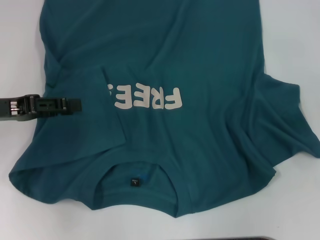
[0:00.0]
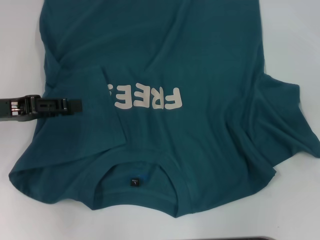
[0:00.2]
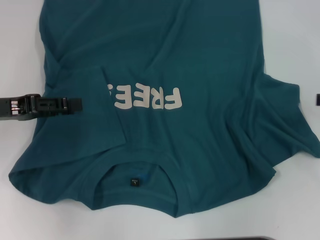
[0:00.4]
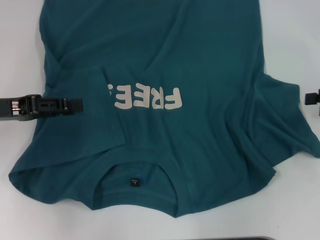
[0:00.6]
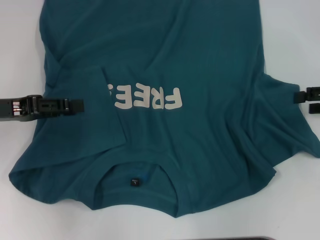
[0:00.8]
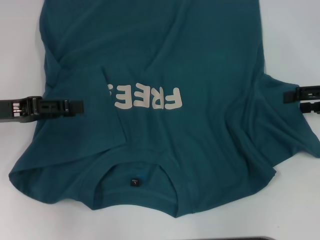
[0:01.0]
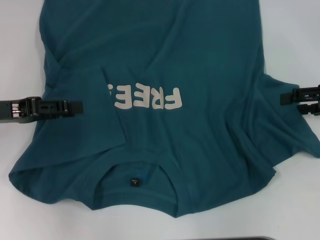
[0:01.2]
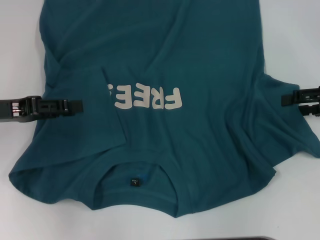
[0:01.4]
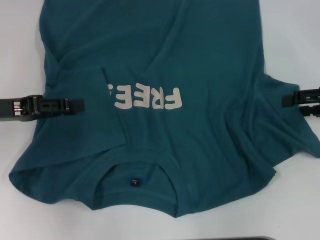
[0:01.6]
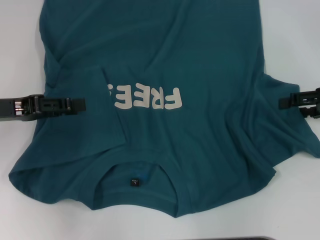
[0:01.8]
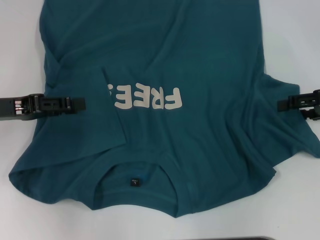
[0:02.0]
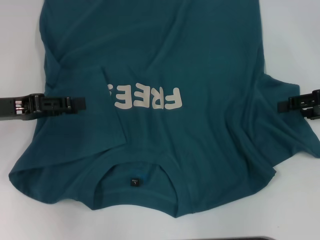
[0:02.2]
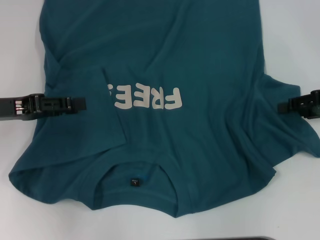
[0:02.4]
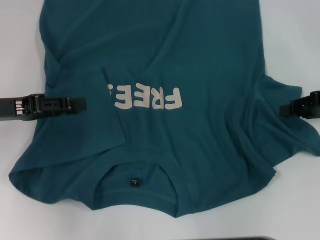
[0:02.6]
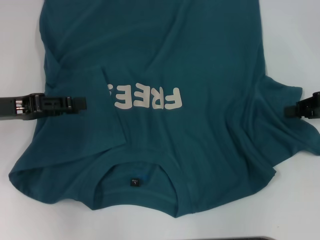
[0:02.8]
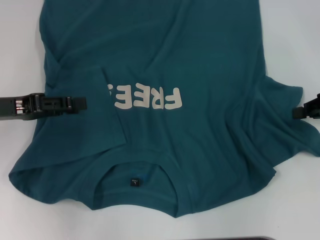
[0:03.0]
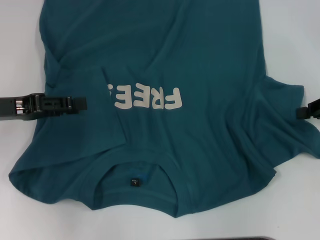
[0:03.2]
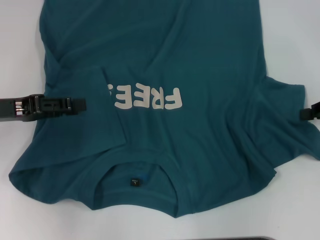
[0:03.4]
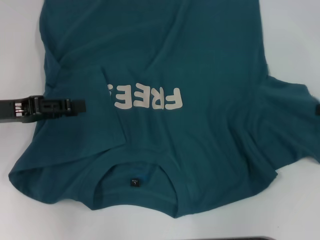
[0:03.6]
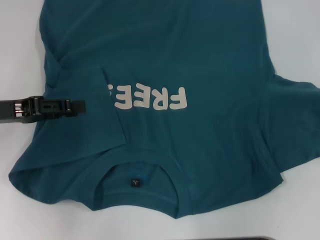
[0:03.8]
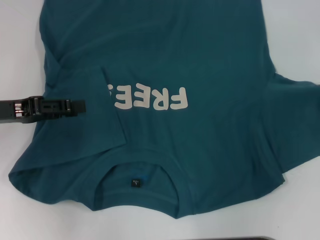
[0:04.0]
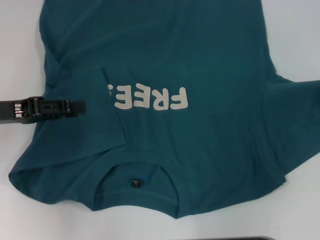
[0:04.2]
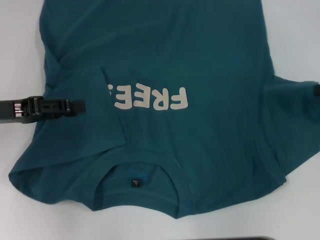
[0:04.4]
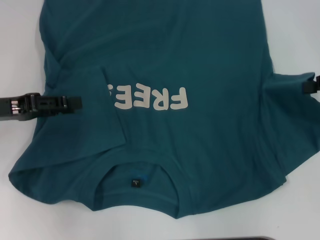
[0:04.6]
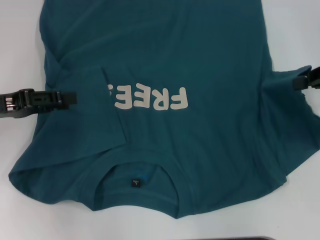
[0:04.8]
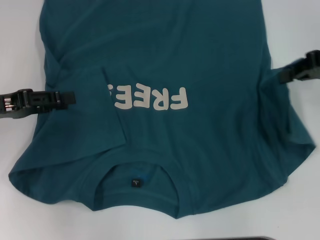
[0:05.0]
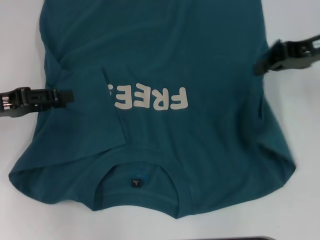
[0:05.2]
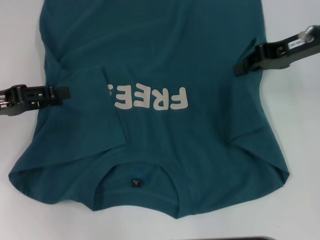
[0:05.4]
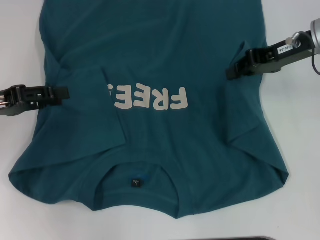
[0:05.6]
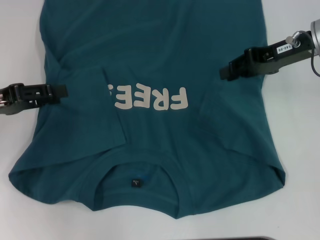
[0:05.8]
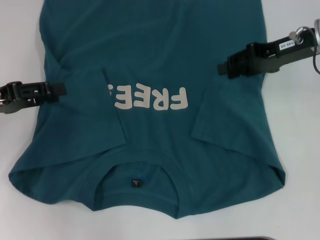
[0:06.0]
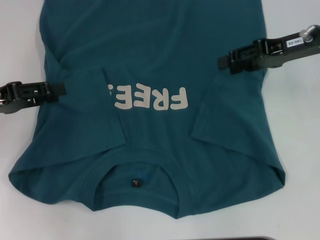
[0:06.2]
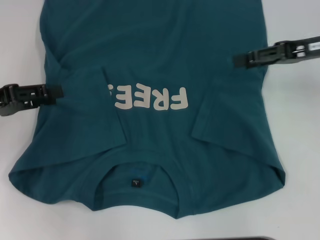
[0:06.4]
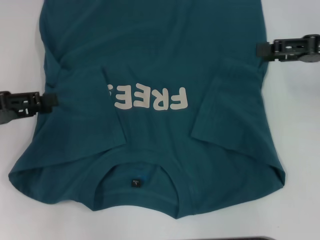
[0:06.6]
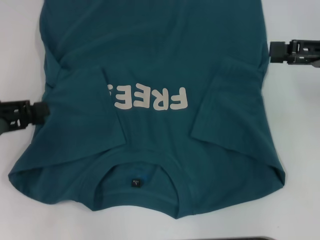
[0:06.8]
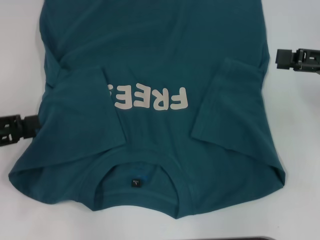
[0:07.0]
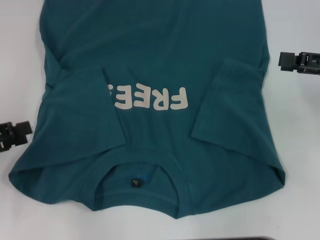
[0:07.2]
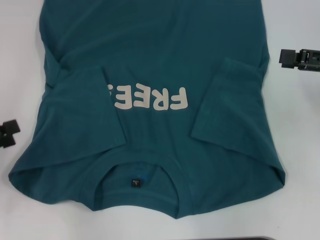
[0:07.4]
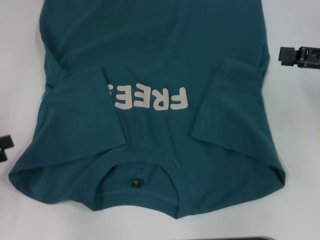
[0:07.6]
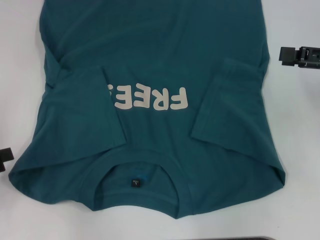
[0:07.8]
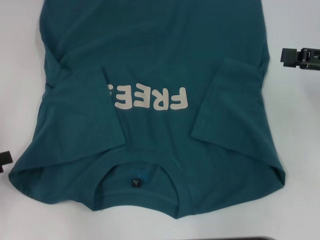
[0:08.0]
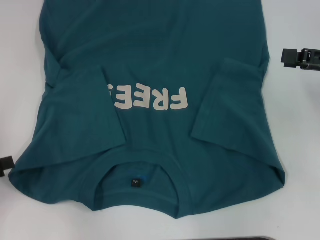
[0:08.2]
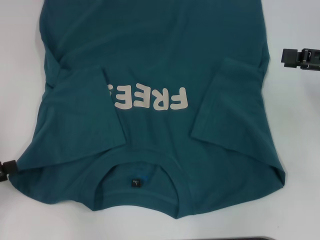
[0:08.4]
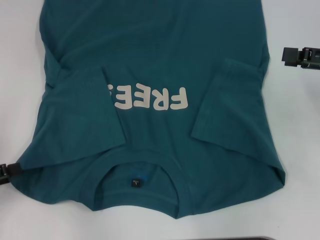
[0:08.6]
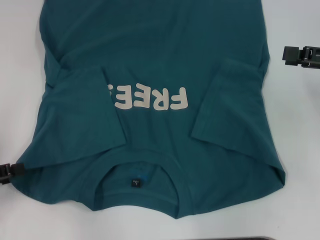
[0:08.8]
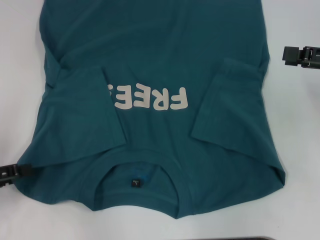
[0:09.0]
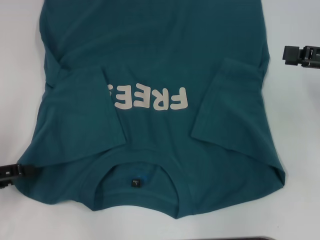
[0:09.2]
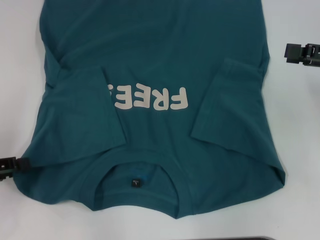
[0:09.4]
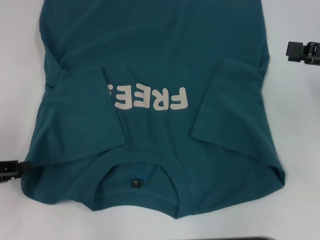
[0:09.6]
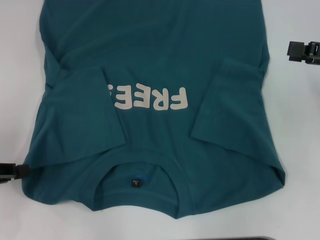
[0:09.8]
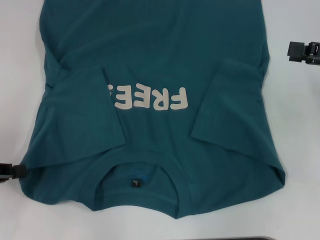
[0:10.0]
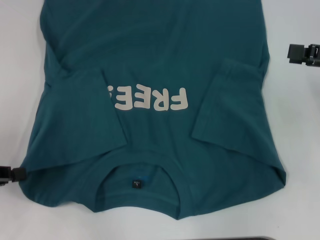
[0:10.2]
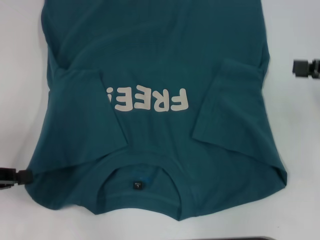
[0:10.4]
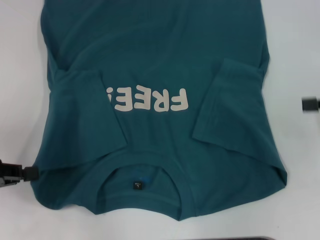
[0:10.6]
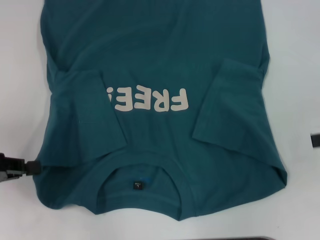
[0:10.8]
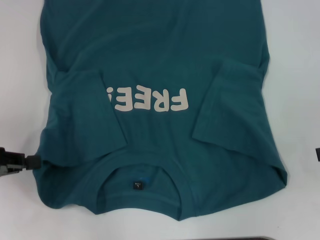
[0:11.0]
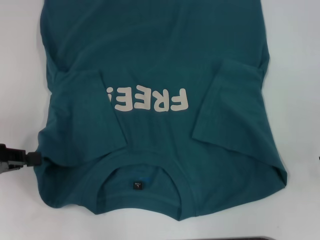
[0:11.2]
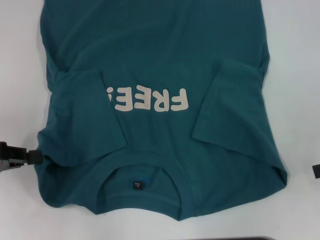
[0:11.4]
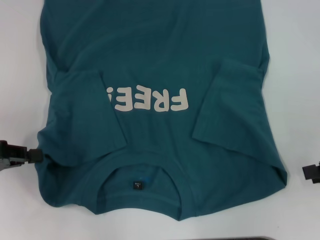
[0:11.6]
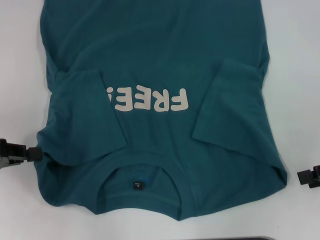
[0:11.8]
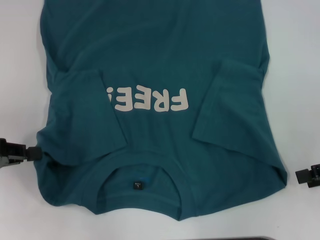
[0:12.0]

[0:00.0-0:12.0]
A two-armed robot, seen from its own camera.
Step, 0:00.0 to 0:05.8: Fold the bottom right sleeve to the right.
Step, 0:06.0 to 0:09.8: Grab the bottom left corner with your left hand.
0:00.0 to 0:01.6: The right gripper travels to the left by approximately 5 cm.
0:01.6 to 0:03.0: The right gripper closes its fingers.
0:03.0 to 0:04.4: The grippers stay close to where they were, moving slightly.
0:04.4 to 0:06.0: The right gripper moves to the left and forward, roughly 15 cm.
0:06.0 to 0:07.6: The left gripper moves backward and to the left, approximately 10 cm. The right gripper travels to the right and backward by some 10 cm, and opens.
0:07.6 to 0:09.0: The grippers move only a little.
0:09.0 to 0:10.4: The left gripper closes up.
0:10.4 to 0:12.0: The right gripper heads backward, covering some 5 cm.

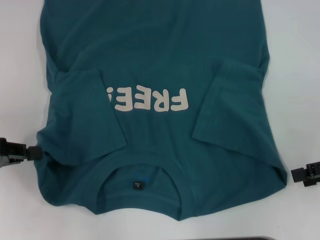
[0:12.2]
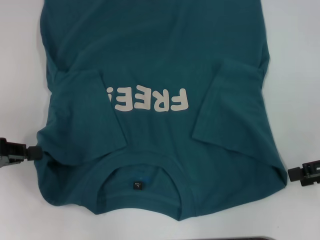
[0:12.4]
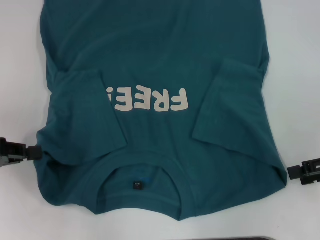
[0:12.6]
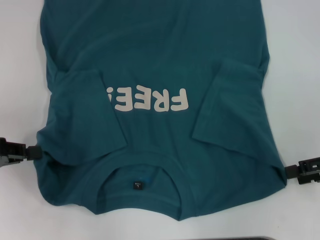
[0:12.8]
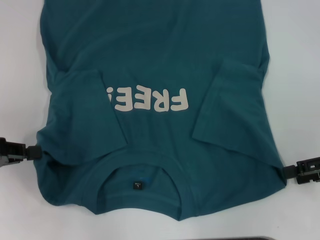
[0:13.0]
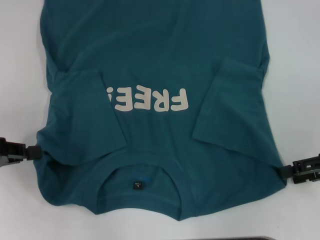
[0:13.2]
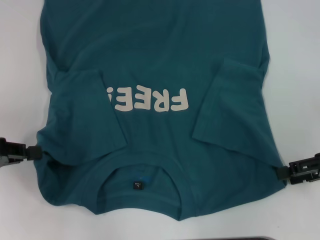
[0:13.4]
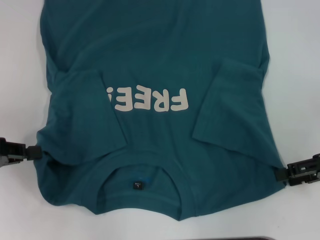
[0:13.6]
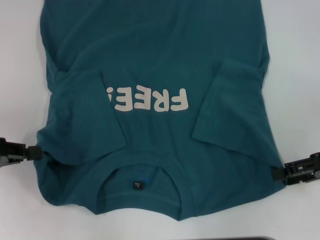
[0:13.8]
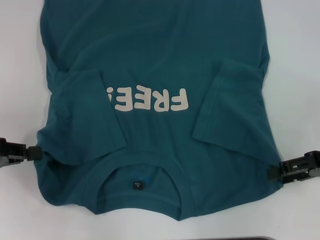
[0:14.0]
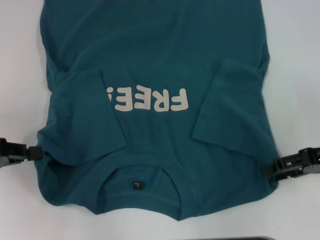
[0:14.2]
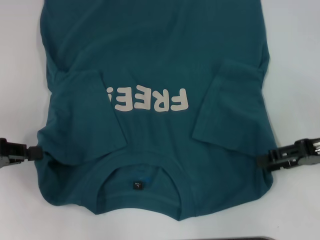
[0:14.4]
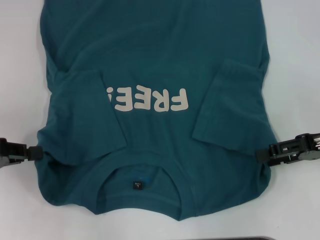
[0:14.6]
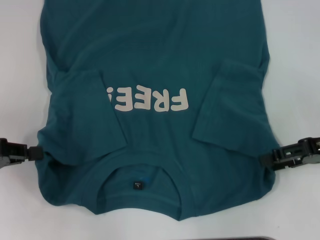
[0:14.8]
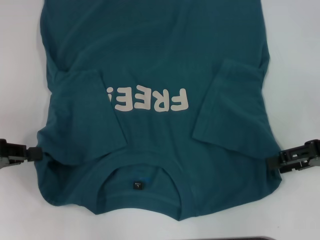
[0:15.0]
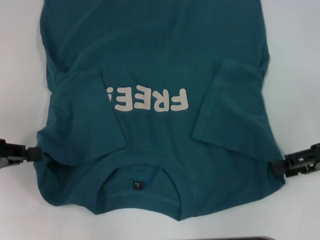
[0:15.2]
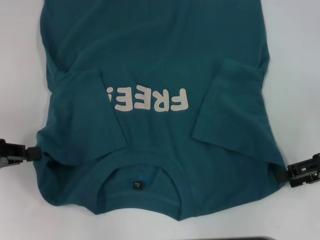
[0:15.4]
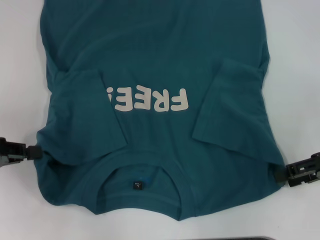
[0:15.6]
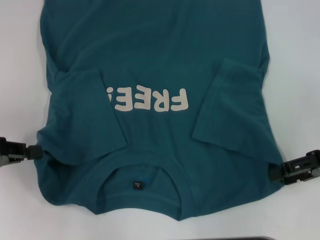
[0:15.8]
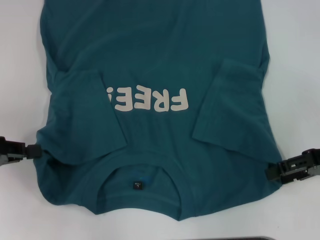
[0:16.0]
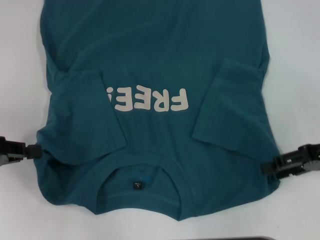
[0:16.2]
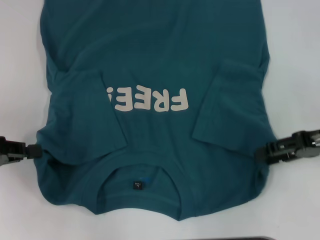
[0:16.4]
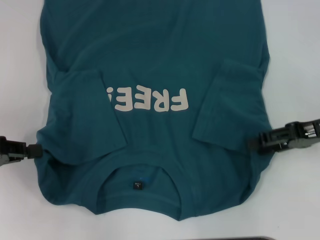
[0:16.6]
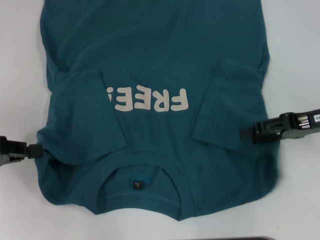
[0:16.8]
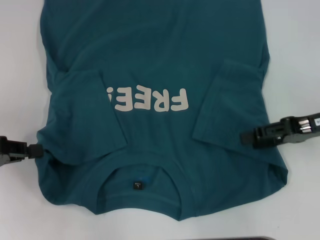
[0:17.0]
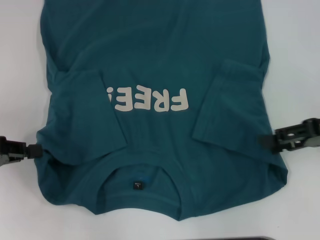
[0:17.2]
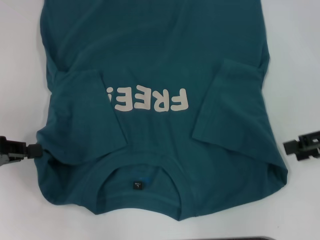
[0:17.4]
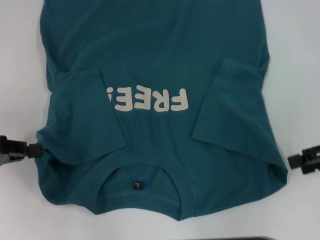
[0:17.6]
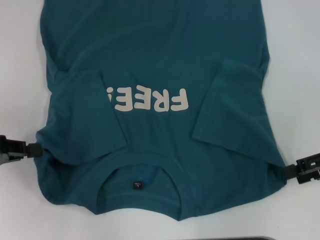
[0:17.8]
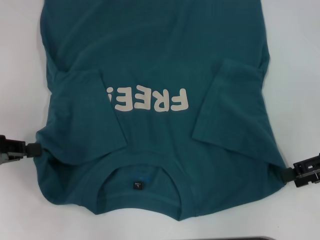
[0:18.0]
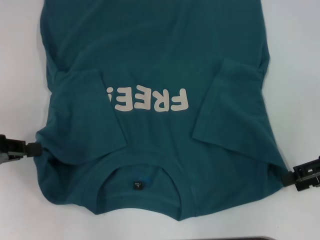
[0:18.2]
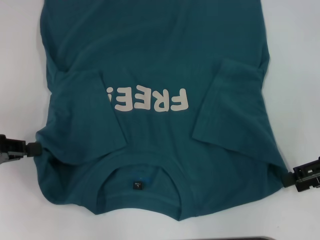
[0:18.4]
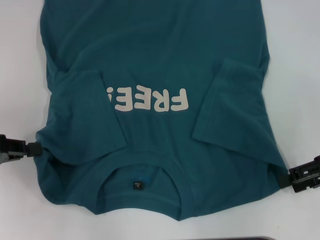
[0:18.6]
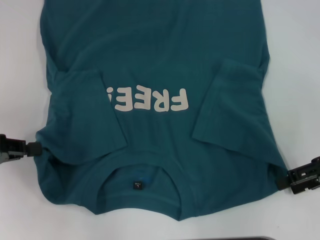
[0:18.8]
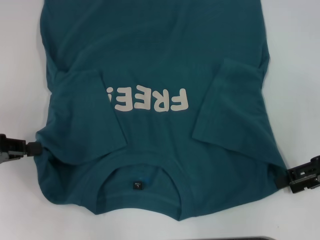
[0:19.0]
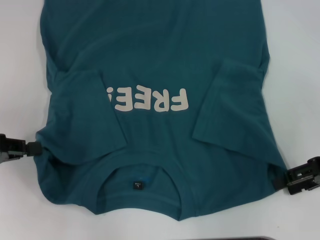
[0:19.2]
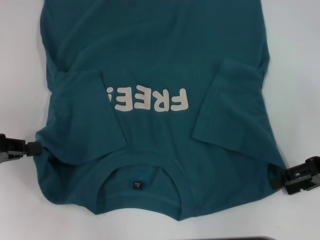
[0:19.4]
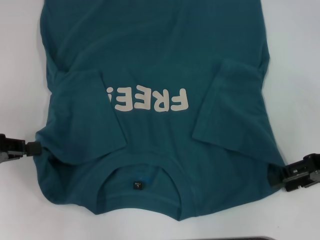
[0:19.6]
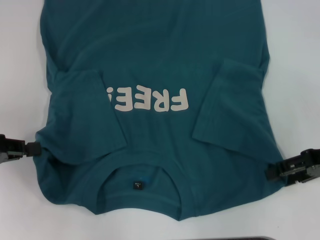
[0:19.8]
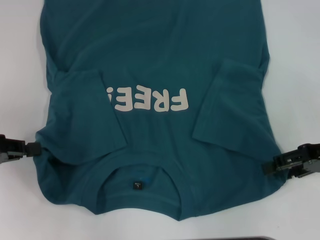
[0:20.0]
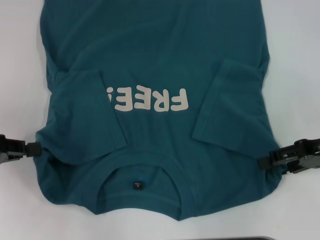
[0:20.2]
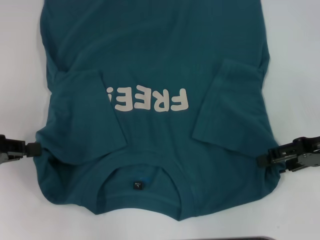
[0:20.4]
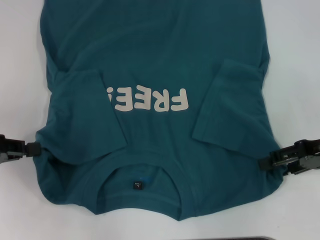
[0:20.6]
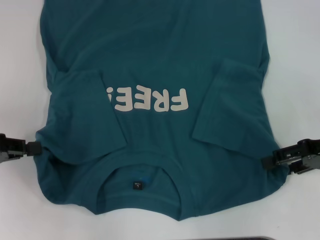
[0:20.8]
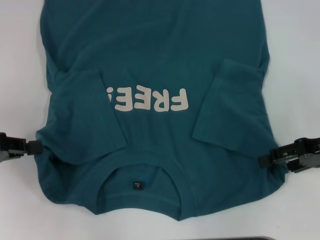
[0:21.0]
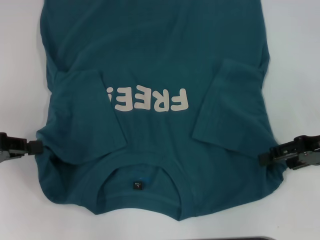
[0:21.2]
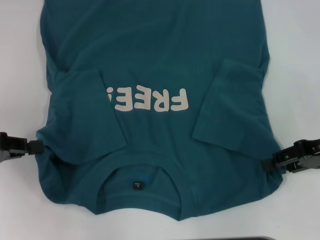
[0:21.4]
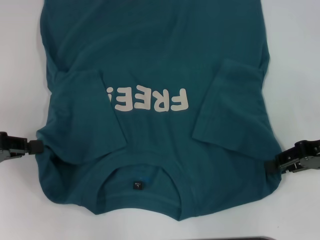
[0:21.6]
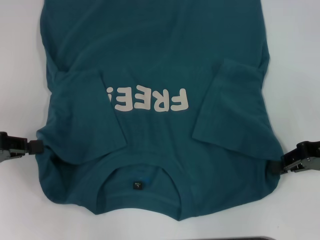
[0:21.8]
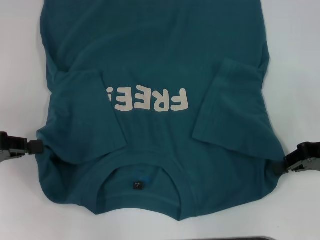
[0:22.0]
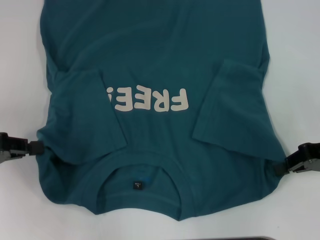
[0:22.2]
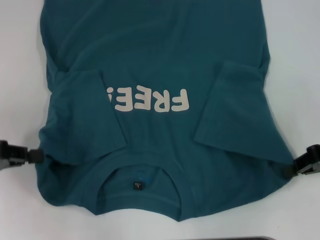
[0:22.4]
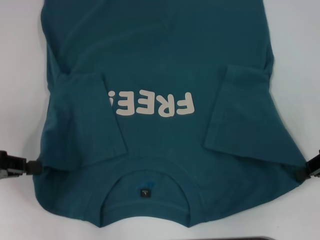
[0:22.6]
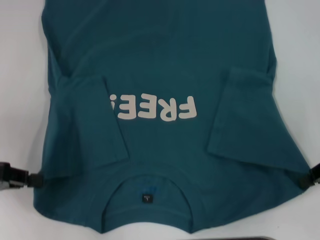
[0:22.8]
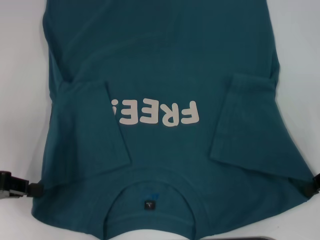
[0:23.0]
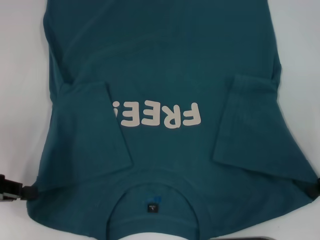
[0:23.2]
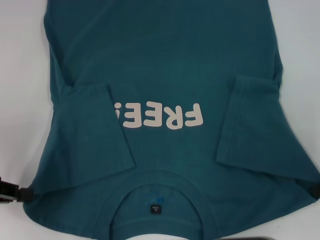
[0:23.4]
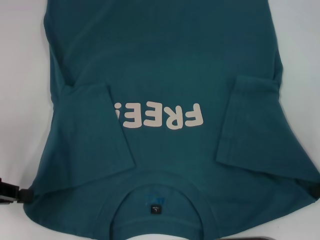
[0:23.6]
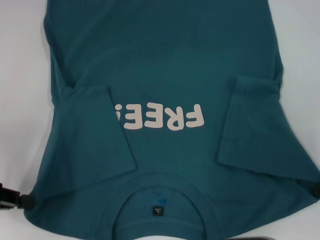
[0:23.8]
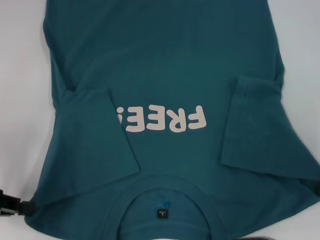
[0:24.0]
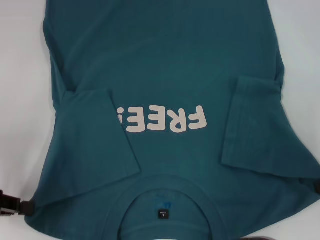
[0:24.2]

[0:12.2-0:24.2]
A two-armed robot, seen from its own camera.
Step, 0:12.2 to 0:22.2: Grab the bottom right corner with your right hand.
0:13.8 to 0:19.8: The grippers stay close to where they were, moving slightly.
0:19.8 to 0:21.2: Neither gripper changes place.
0:21.2 to 0:22.6: The right gripper closes.
